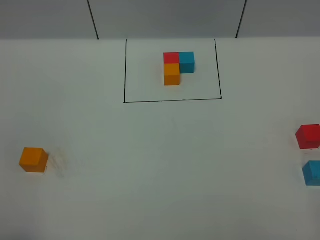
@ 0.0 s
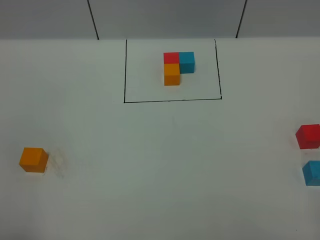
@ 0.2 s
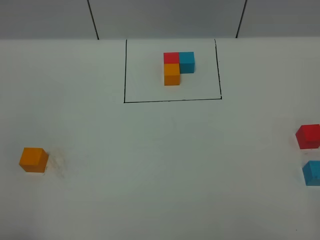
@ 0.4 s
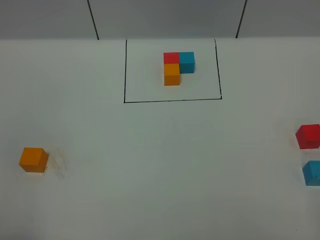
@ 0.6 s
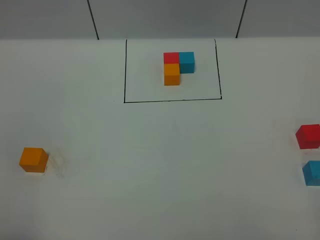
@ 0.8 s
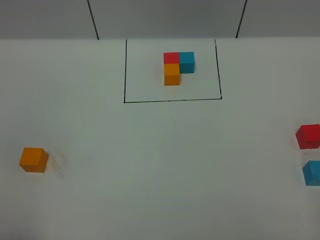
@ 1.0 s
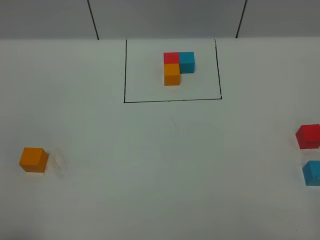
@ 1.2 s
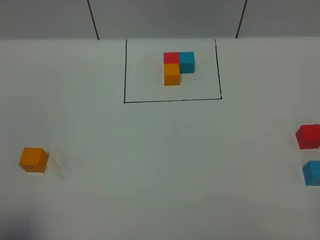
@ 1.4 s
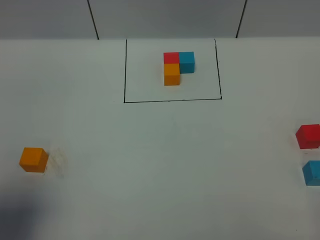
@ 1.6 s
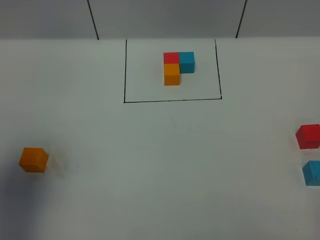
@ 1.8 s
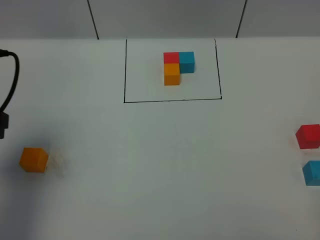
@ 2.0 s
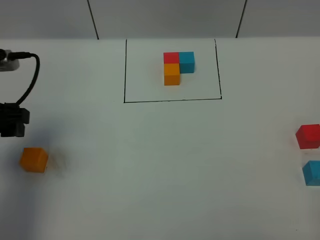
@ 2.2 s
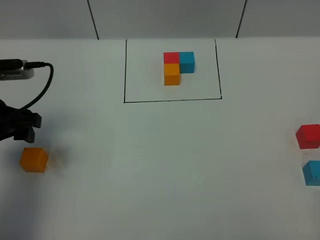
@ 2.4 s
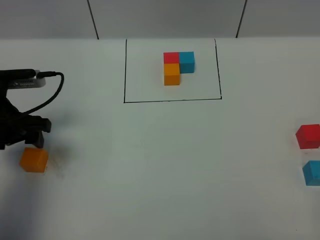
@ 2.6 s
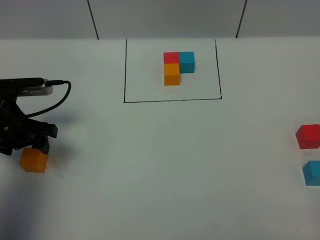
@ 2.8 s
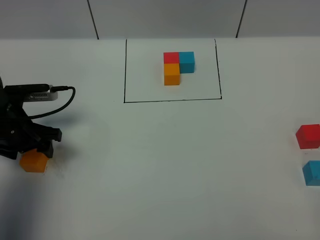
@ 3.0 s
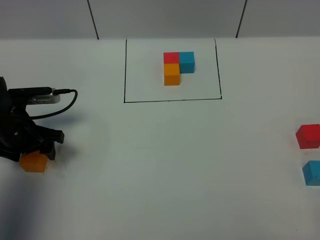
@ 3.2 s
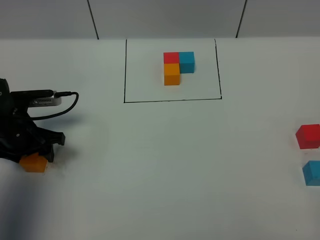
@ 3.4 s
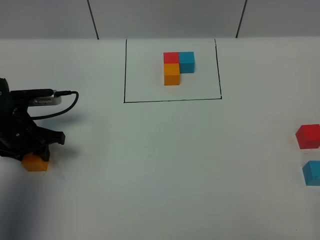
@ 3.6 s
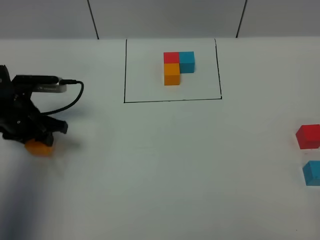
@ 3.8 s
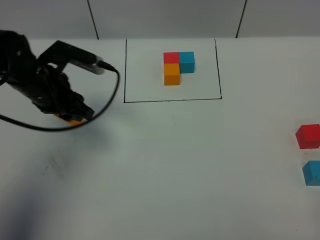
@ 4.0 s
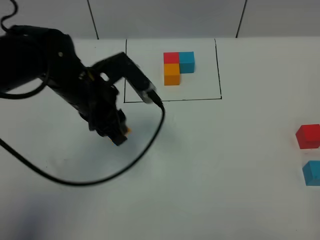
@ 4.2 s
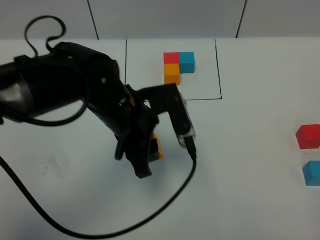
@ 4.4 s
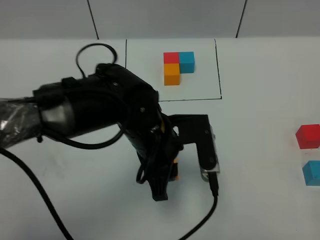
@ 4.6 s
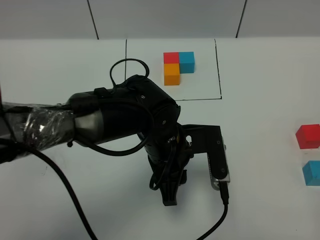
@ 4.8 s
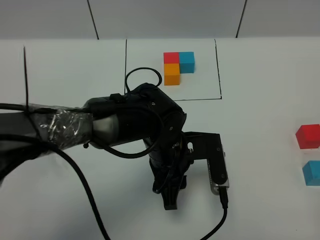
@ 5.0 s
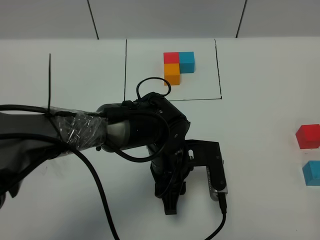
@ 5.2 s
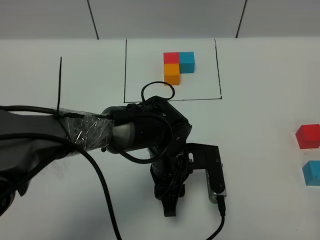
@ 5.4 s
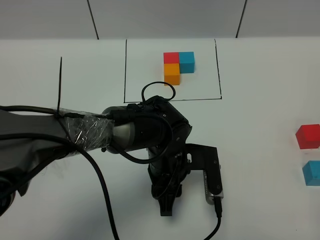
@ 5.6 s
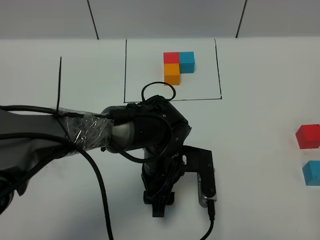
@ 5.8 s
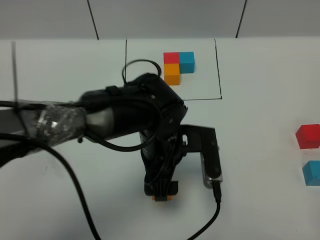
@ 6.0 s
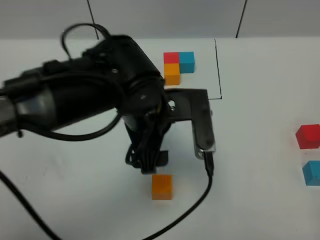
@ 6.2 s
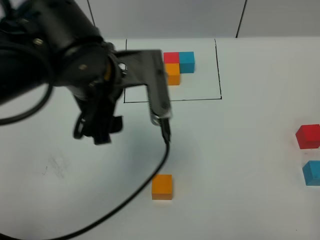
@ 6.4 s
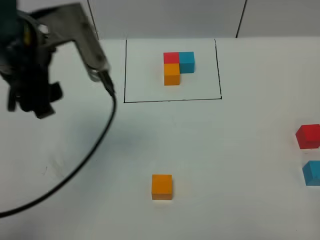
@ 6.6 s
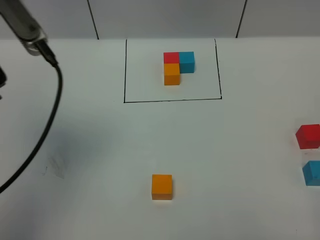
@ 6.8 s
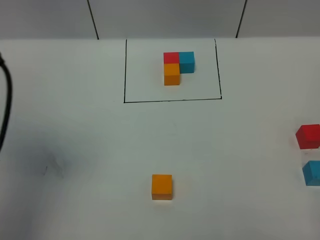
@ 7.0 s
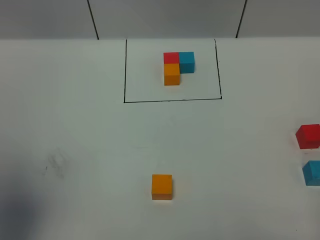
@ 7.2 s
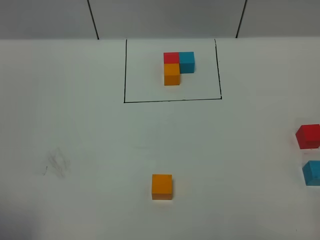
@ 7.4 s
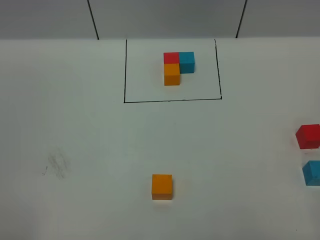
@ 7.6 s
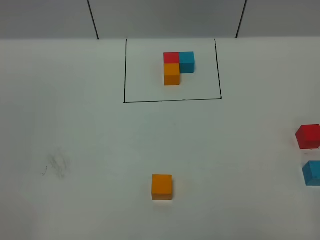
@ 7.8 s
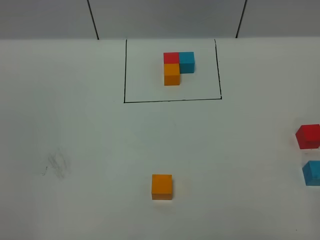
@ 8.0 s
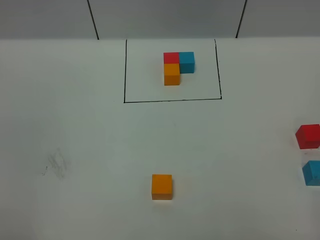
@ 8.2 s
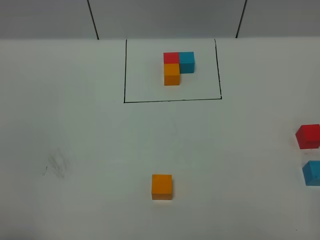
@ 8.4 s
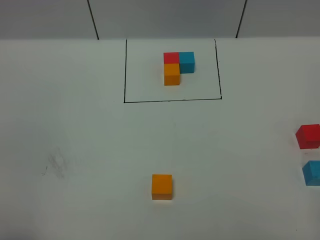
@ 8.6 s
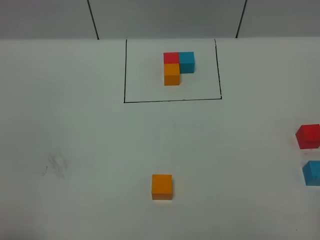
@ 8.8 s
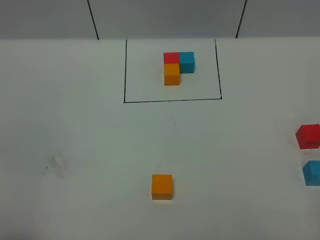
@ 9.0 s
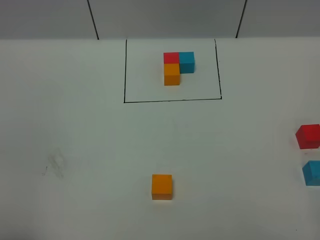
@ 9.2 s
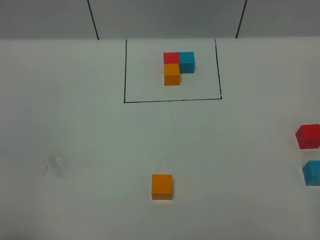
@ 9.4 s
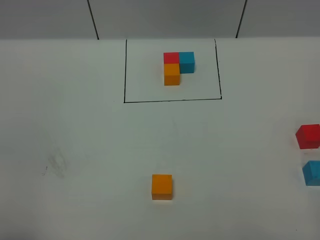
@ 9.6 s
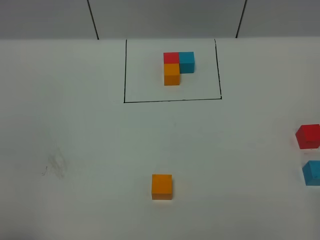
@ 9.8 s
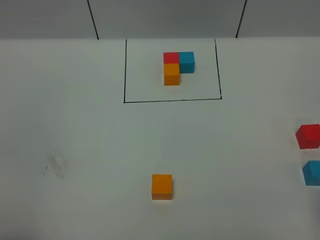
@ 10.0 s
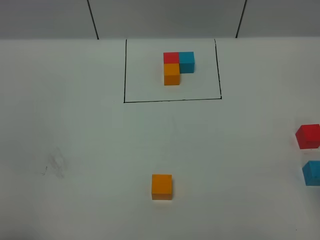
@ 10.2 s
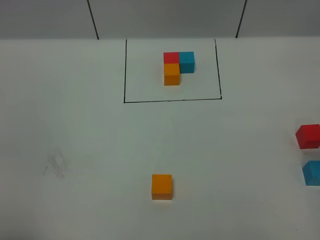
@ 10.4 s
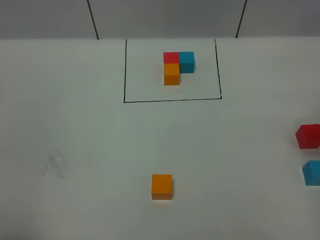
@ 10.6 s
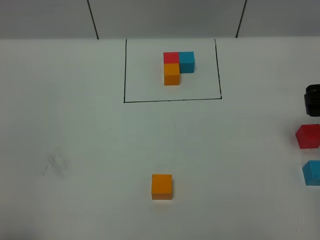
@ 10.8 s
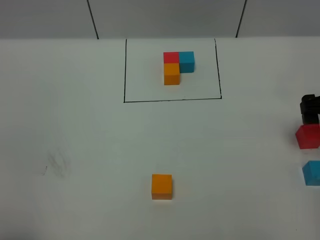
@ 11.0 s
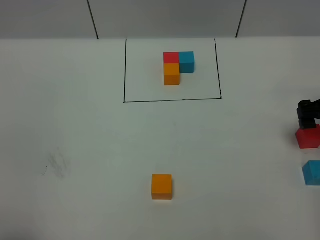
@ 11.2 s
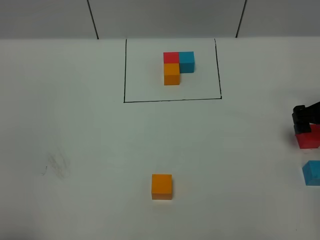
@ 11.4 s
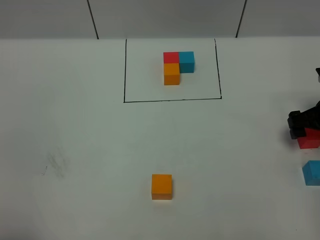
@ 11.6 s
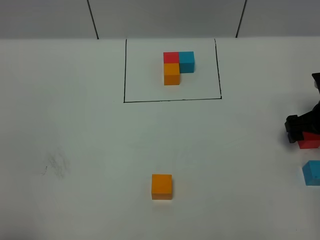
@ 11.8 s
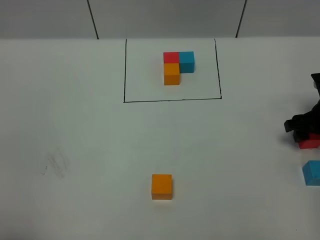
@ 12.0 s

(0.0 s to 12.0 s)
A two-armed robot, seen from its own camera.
Task of the whole recording: According to the building block template in front, assemble the scattered blocks together.
Step, 2.0 s - 6.2 s: Put the orange cube in the center of the table.
0.0 s - 1.6 s: The left gripper goes about 10 cm forward and upward.
1.6 s - 3.0 s: The left gripper is displaced forward and downward by some 30 cm.
3.0 s - 4.4 s: The left gripper heads to the right, covering roughly 20 cm, and closes up.
4.4 s - 6.0 s: The left gripper shifts some 5 cm to the right, and opens.
6.0 s - 7.6 s: The left gripper goes about 50 cm to the left, backward and upward.
10.4 s - 12.0 s: The right gripper shifts about 20 cm downward and forward, and closes its fingers.

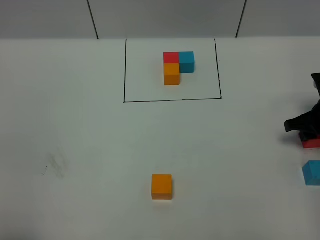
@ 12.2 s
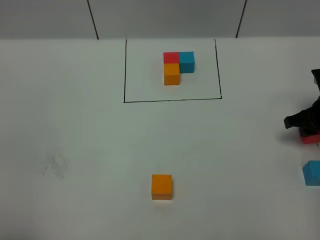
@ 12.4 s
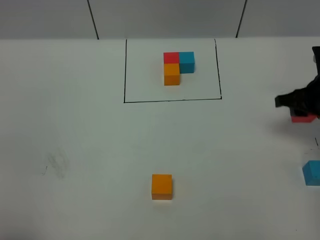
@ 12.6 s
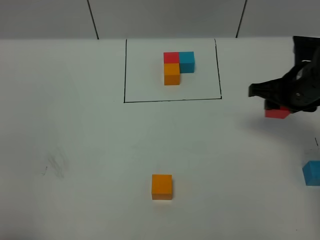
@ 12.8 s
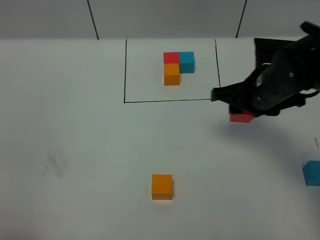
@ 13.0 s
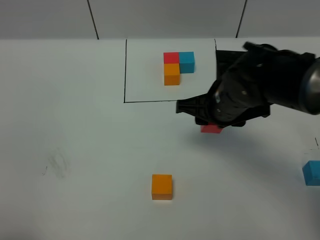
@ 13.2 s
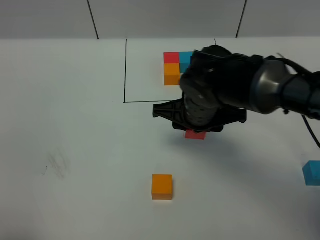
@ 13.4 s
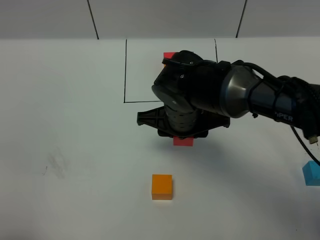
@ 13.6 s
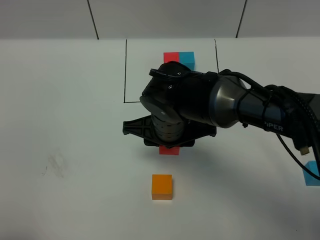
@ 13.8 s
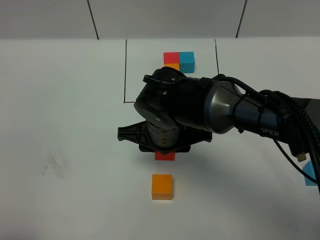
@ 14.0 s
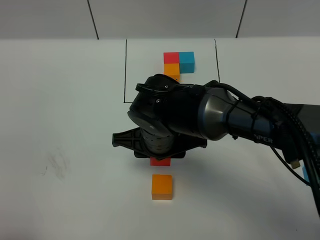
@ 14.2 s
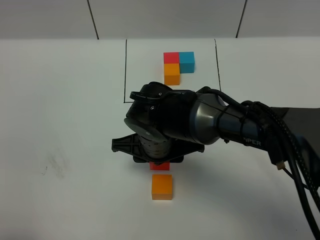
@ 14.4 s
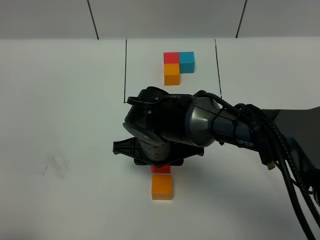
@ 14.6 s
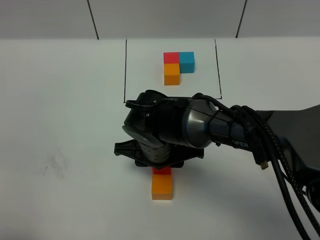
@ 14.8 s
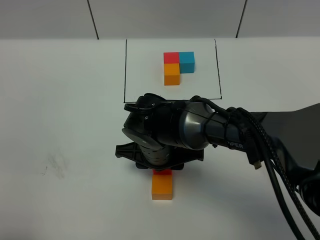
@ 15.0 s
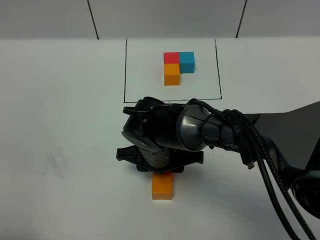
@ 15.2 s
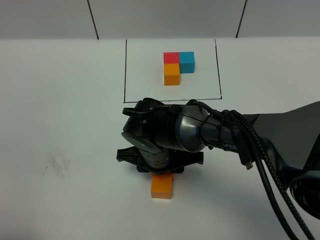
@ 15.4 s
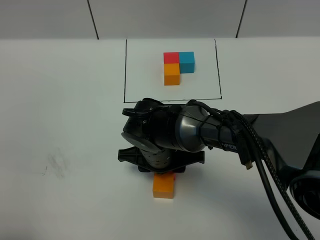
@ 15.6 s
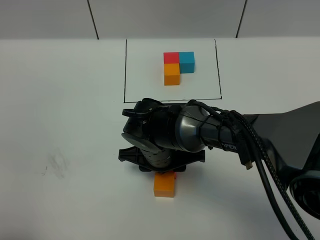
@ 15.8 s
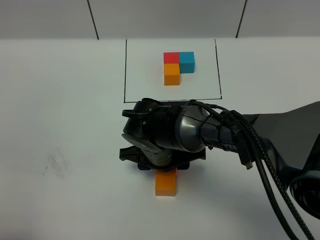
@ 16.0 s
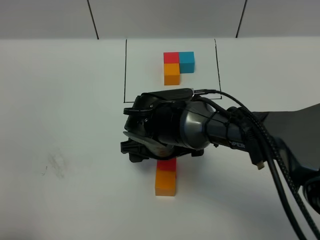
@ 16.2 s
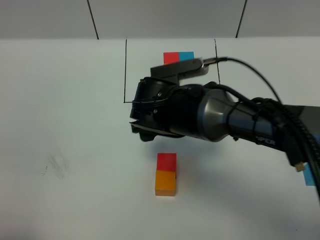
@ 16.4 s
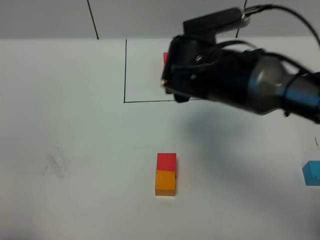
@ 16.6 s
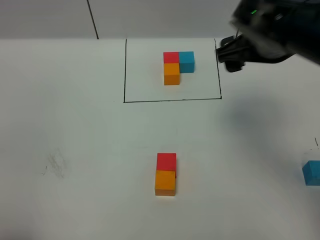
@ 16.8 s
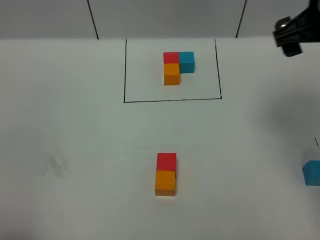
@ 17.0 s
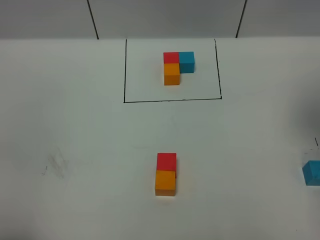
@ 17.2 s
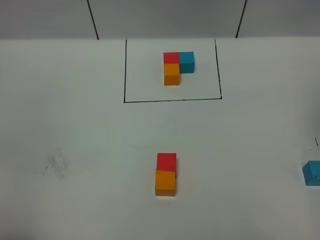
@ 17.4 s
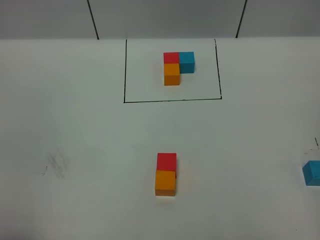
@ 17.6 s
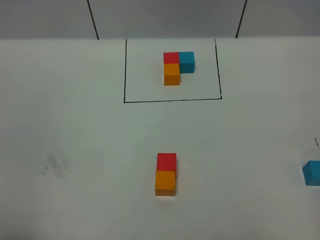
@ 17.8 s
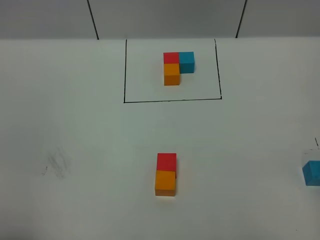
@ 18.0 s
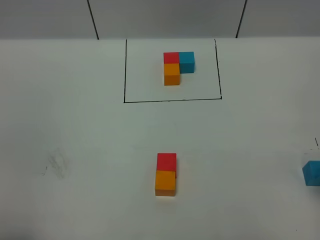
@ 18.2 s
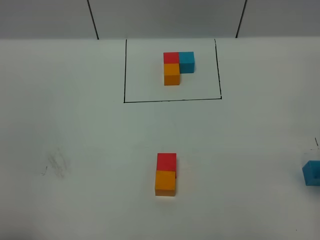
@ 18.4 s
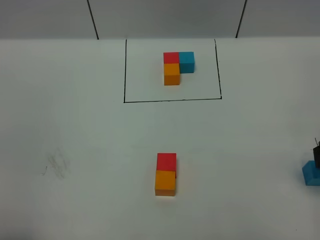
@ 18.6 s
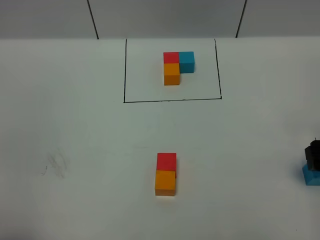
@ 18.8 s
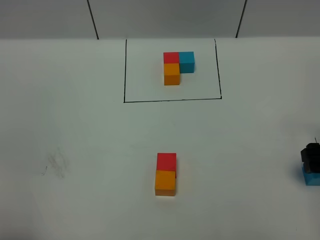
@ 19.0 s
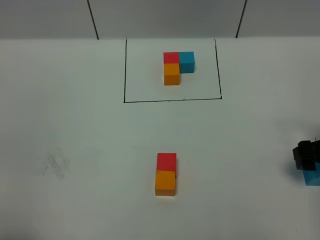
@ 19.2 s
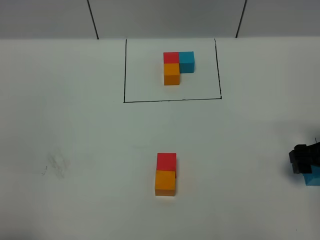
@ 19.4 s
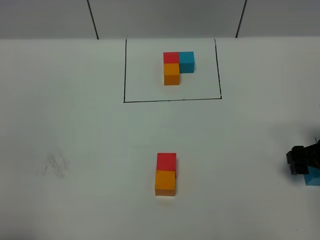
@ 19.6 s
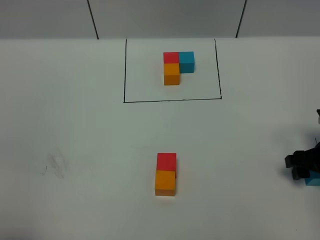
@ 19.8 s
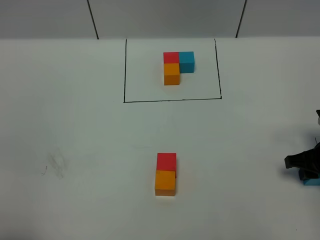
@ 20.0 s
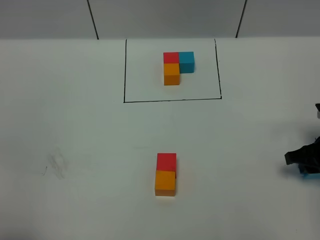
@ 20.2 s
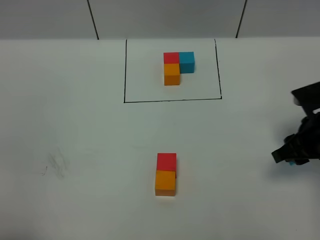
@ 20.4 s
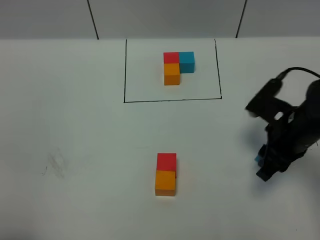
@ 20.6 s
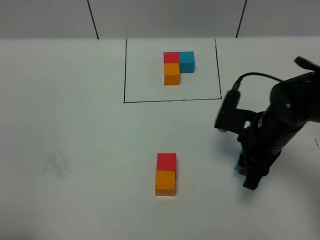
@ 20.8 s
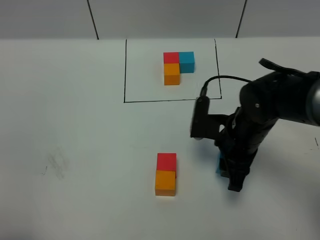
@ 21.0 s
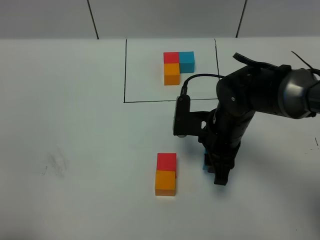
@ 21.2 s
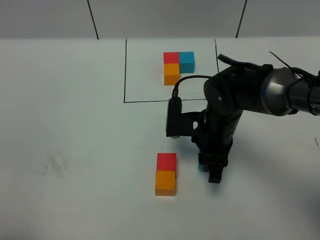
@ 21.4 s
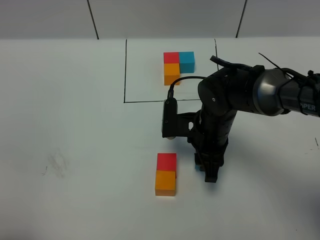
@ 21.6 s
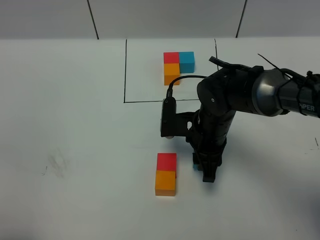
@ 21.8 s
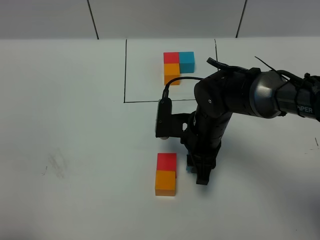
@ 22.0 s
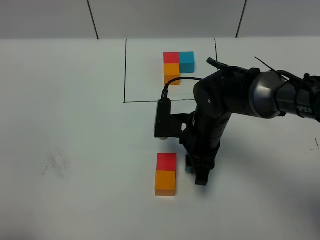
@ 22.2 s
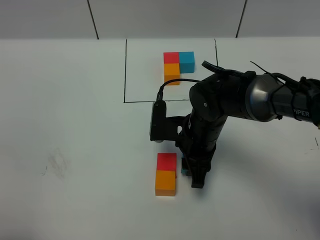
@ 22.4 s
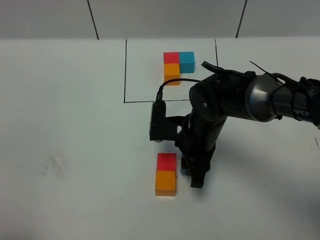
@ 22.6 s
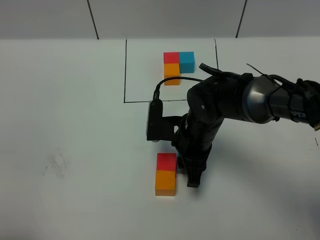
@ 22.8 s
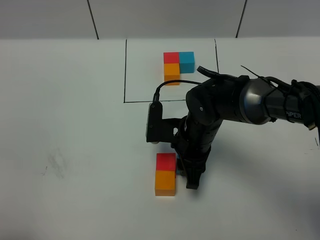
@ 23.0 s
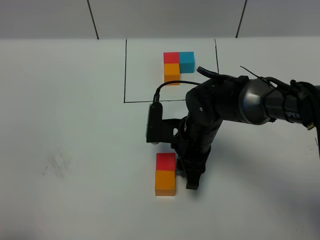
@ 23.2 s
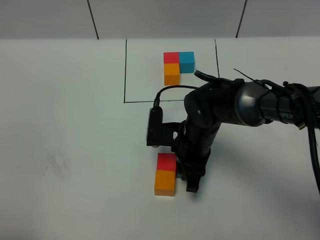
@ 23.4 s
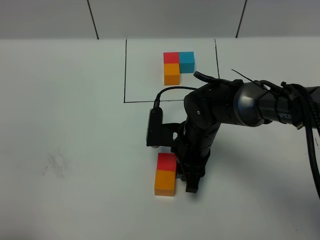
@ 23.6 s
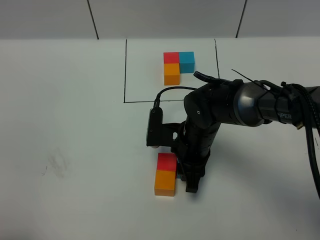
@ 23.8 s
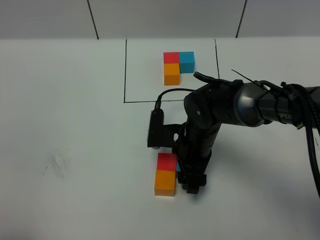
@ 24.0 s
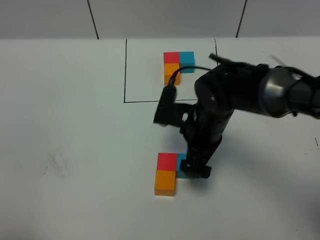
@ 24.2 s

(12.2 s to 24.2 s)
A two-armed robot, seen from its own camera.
Task of the whole recording: According to the building block template in front, assemble the scattered blocks together.
Step, 12.2 s - 16.2 s: Put the red cube on the behind of the orange cube.
12.2 s - 13.8 s: The right gripper travels to the left by roughly 30 cm.
13.8 s - 15.2 s: The right gripper moves downward, approximately 5 cm.
15.2 s - 16.6 s: The right gripper shifts some 15 cm upward and to the right, and opens up.
16.6 s - 18.2 s: The right gripper travels to the right and backward by roughly 30 cm.
18.2 s - 19.8 s: The right gripper heads downward and forward, covering approximately 15 cm.
19.8 s - 21.2 s: The right gripper is displaced to the left by some 20 cm.
21.2 s - 22.6 s: The grippers move only a little.
22.6 s - 24.2 s: The right gripper opens.
